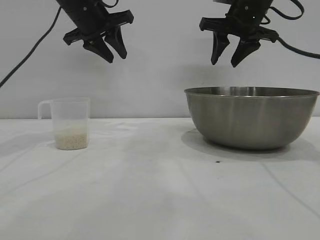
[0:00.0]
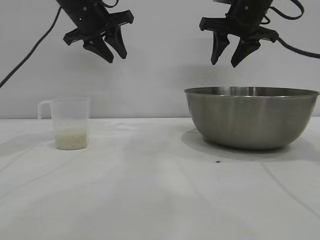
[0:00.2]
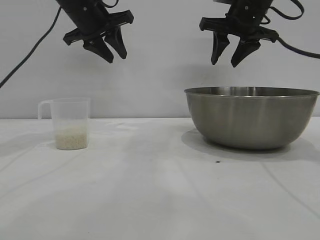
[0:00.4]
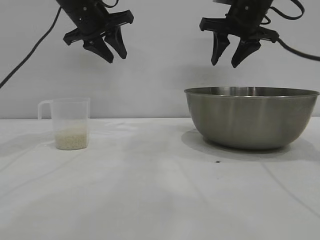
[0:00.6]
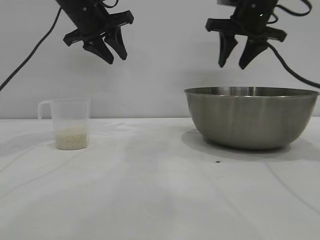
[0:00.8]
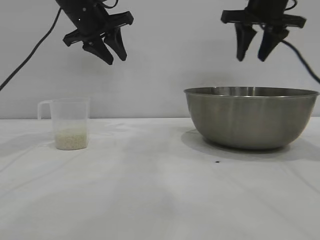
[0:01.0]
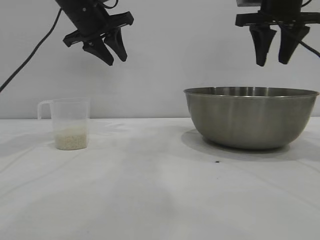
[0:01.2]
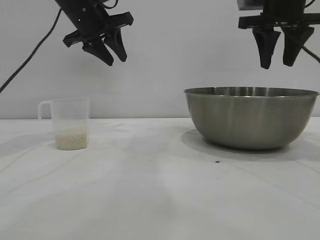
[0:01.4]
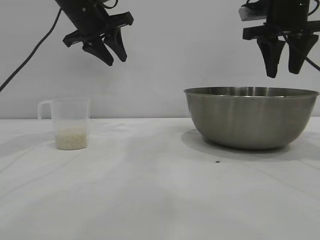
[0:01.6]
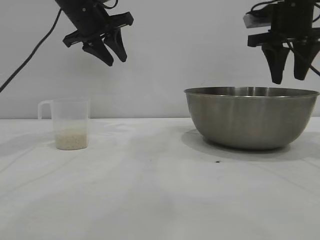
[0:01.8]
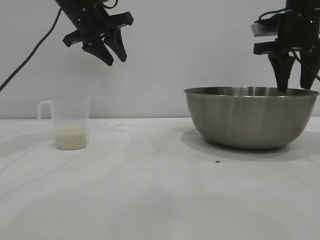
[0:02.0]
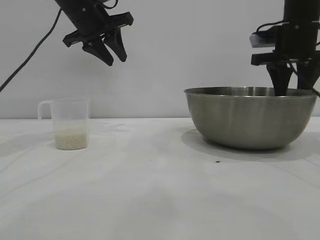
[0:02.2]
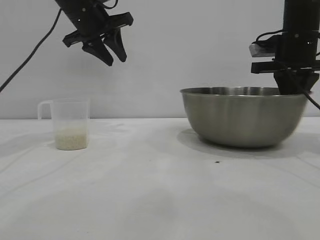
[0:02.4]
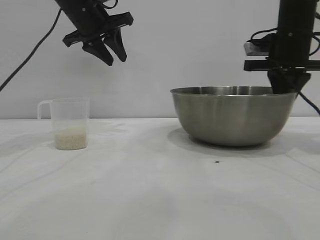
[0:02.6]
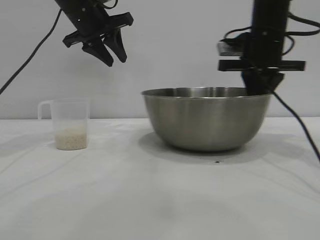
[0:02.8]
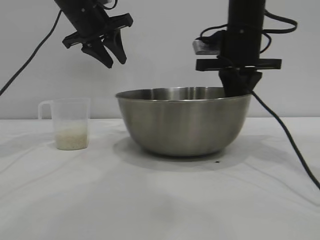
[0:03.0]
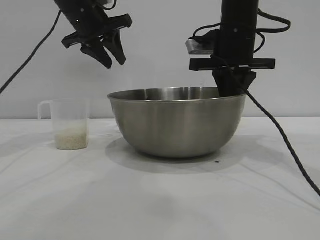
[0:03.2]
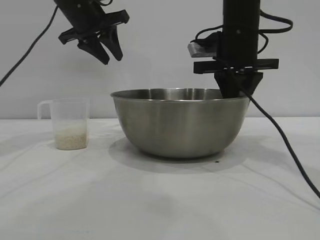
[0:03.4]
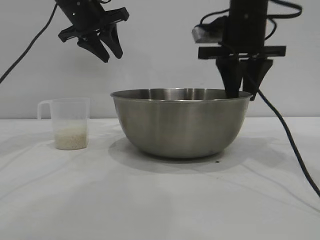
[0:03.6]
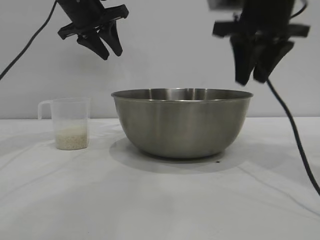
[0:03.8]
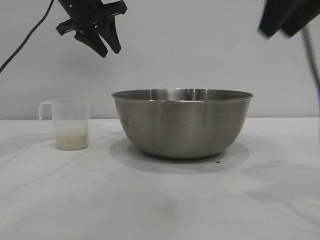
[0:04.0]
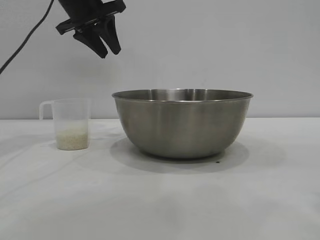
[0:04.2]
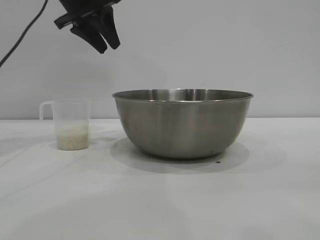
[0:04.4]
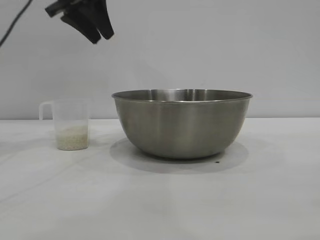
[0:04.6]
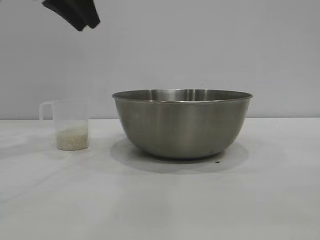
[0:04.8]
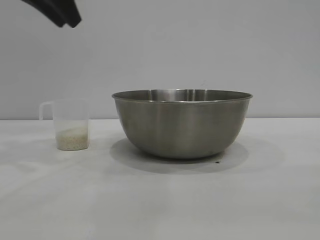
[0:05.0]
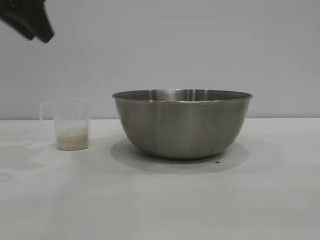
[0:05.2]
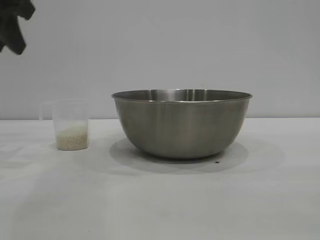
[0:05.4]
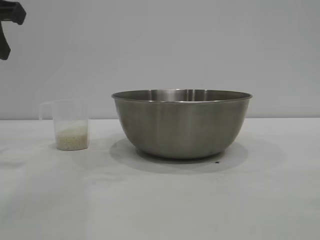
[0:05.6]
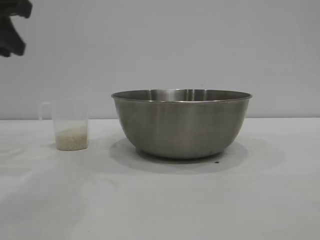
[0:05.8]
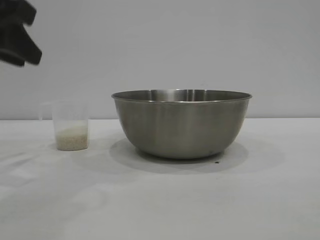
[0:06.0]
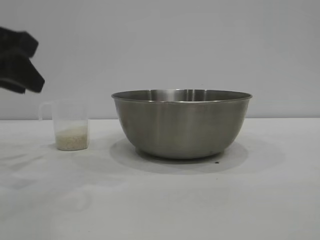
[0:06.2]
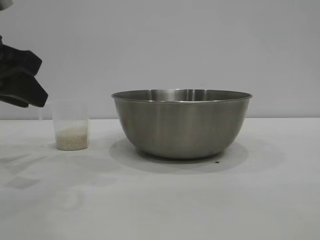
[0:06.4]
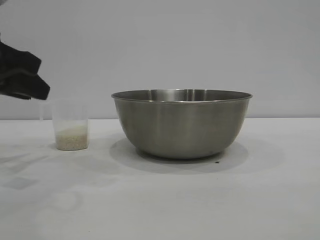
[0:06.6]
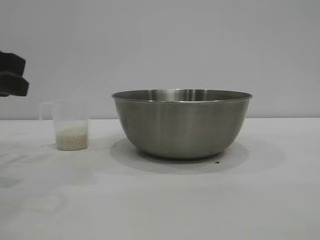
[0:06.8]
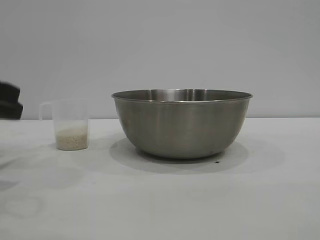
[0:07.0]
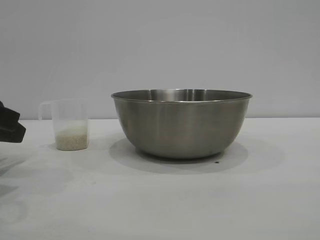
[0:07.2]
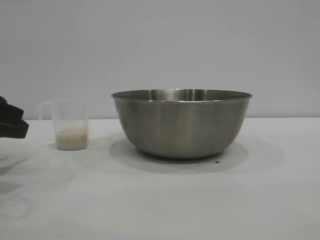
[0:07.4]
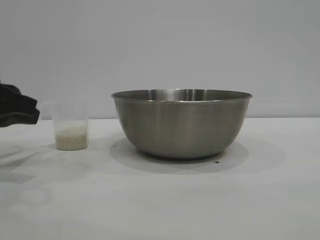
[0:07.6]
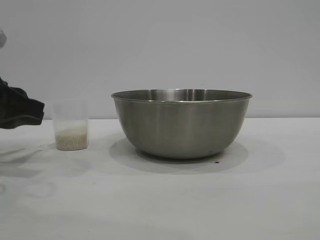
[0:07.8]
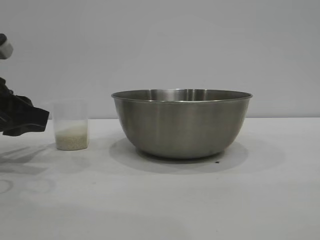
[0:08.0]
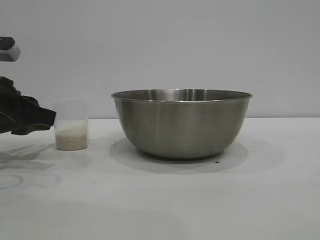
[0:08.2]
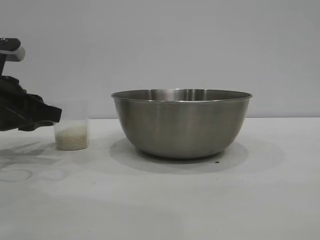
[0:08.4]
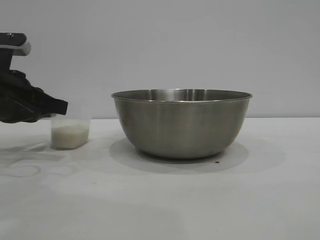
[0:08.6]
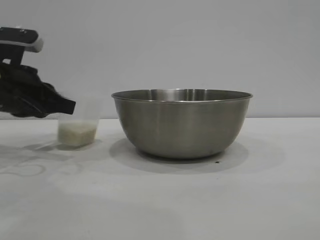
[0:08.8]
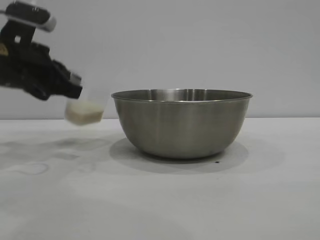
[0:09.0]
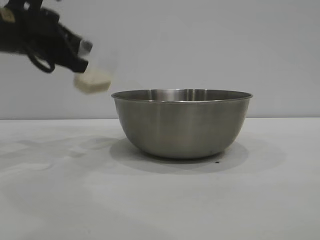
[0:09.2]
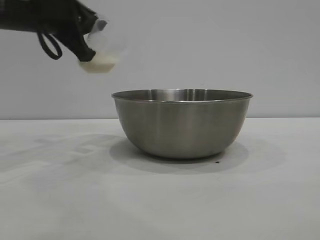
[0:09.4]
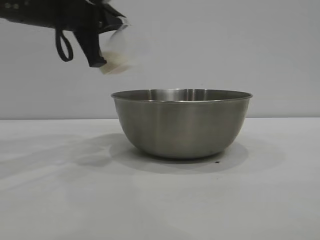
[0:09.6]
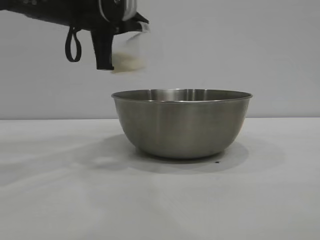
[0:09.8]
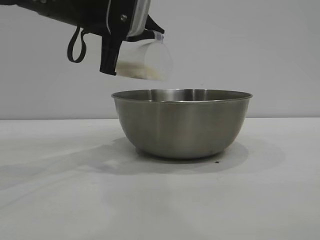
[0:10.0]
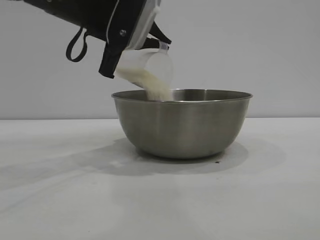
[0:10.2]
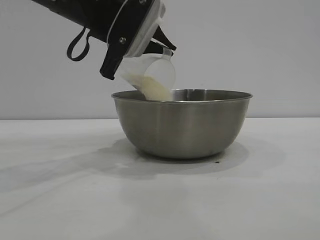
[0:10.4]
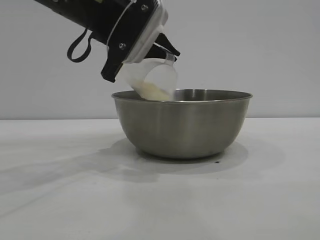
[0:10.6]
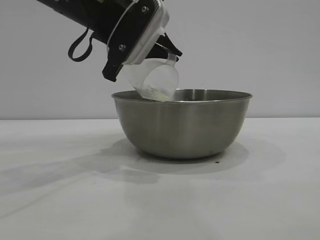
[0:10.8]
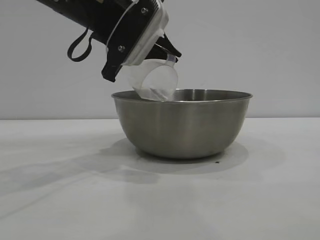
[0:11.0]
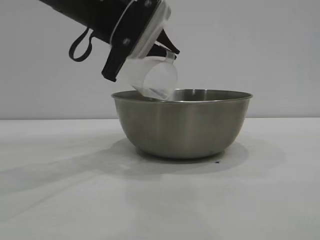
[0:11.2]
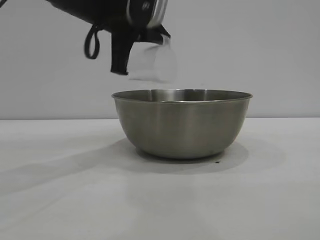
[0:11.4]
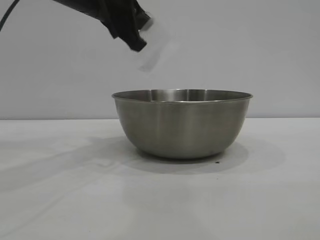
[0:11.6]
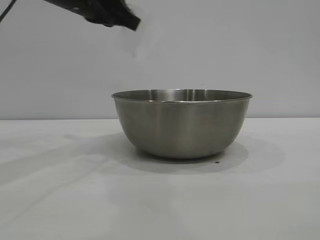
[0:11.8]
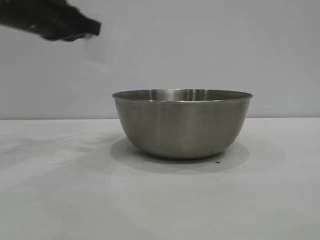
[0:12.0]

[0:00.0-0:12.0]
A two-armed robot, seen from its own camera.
Task of the whole recording: the right gripper grasp the rice container and place it in the center of the table, the left gripper grasp the rice scoop and pour the rice into the rice container.
Step, 0:00.0 to 0:03.8: Move the bowl to the center of view with the right gripper.
Step, 0:04.0 to 0:08.8: Pick up the cup with rice in it with the left gripper.
Step, 0:09.2 to 0:11.2: Pour the rice from the cup into the bowl with the left gripper.

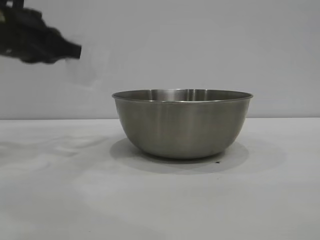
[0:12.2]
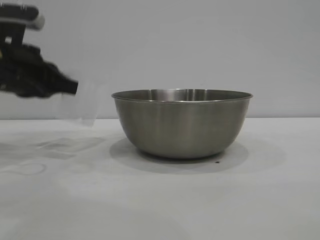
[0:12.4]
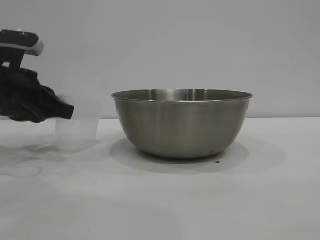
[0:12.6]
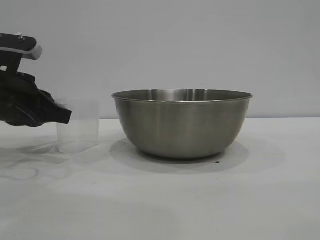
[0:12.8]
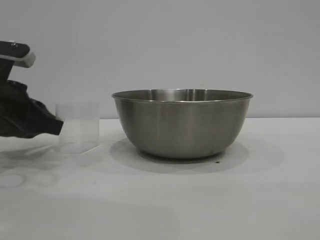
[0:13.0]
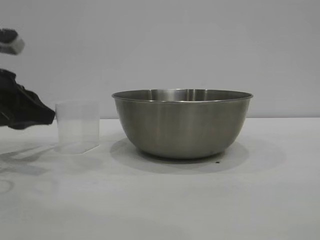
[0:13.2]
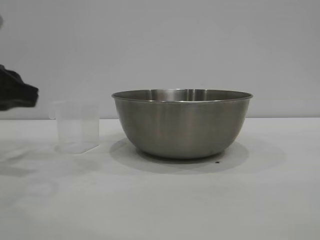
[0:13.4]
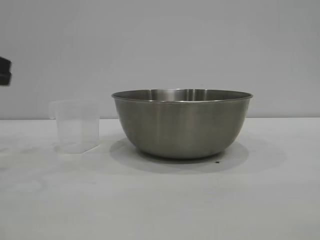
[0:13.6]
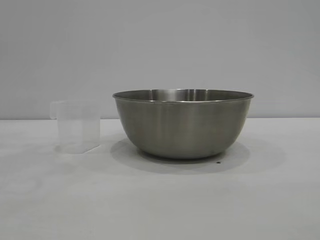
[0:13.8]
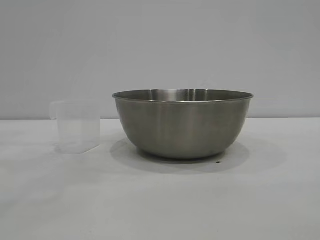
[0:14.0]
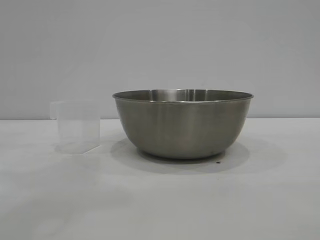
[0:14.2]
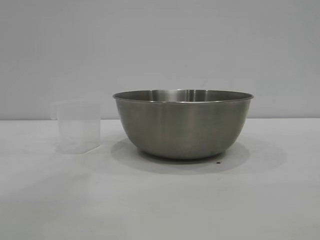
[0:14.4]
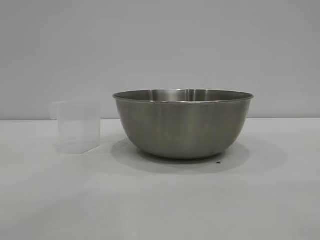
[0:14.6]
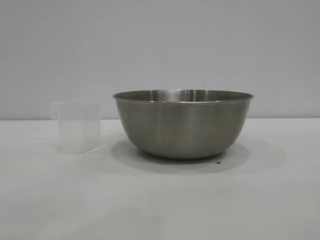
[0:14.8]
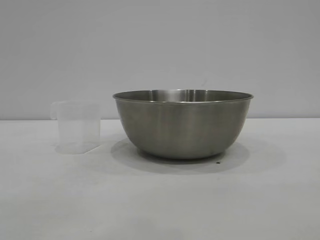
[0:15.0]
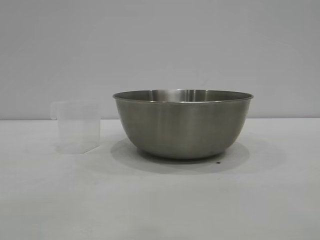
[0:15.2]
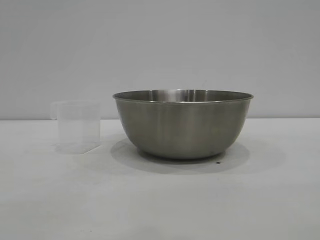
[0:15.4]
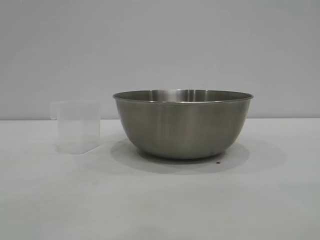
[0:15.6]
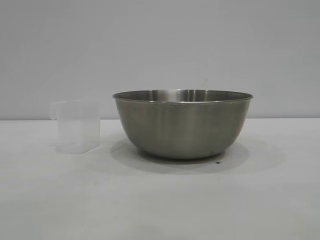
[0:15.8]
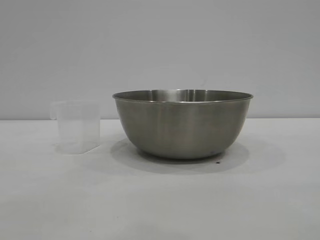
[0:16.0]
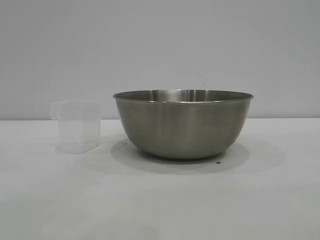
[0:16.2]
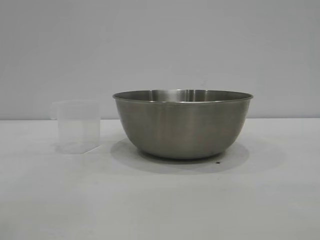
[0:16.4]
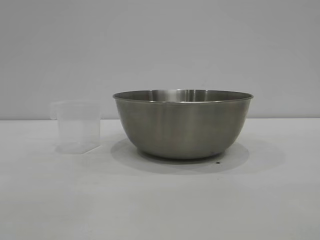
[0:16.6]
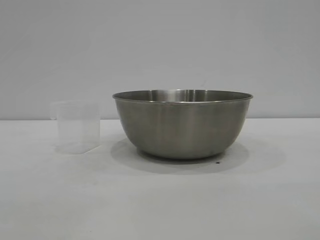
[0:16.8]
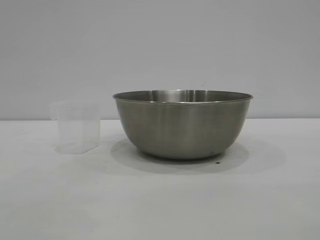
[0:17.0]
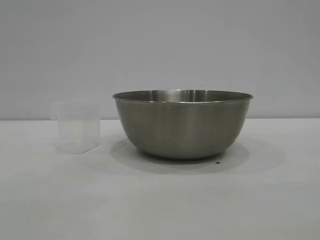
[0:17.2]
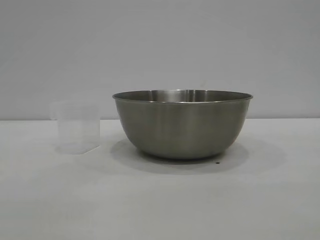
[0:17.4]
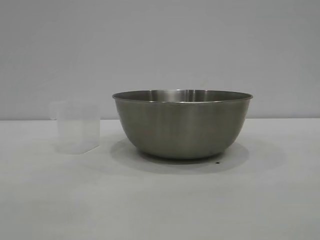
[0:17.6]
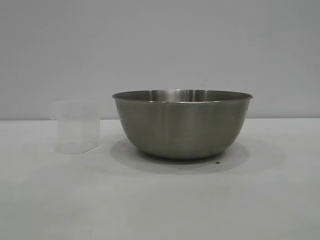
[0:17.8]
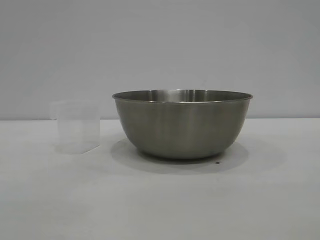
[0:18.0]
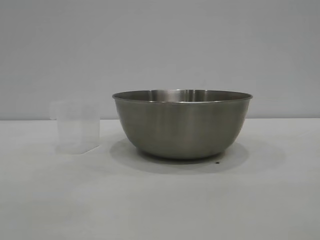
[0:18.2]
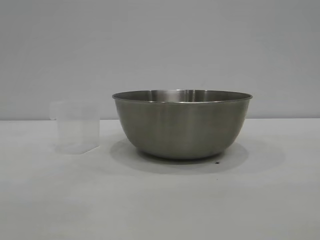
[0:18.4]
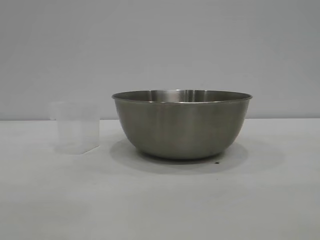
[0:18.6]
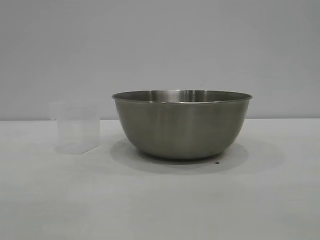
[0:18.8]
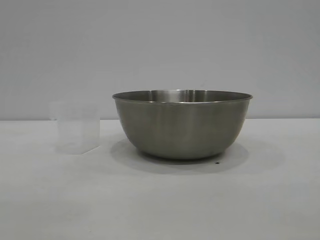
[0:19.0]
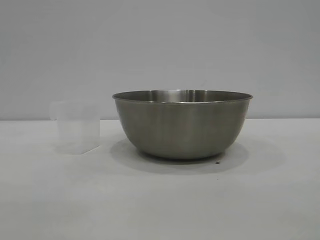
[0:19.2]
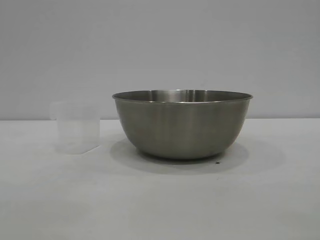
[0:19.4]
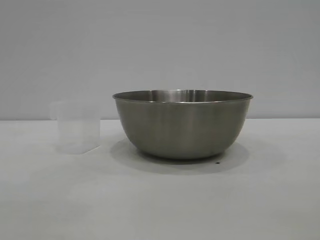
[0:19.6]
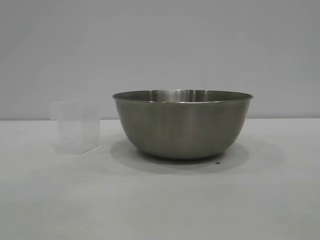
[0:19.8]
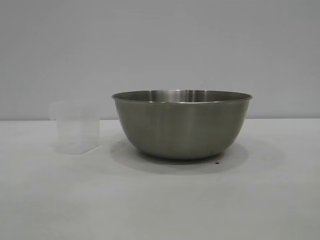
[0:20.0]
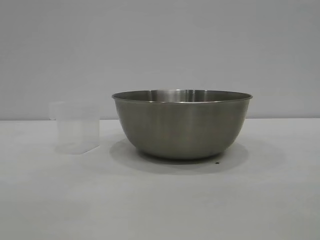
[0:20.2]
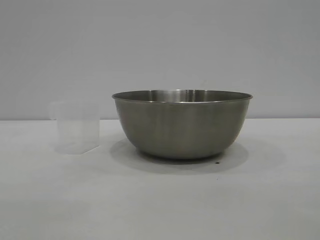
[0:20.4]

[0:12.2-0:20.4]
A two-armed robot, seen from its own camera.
Task of the whole recording: the right gripper grasp the rice container and place it in the center of the table, the left gripper grasp the rice scoop and pour the rice into the rice container.
Step, 0:12.2 to 0:13.2: Place the cup on the table with the left gripper.

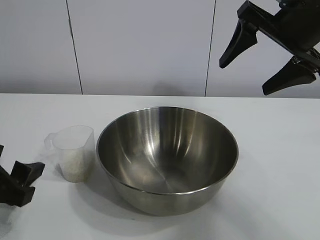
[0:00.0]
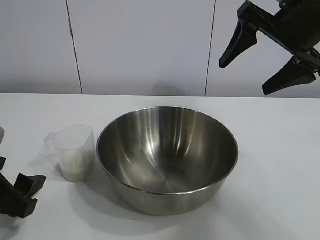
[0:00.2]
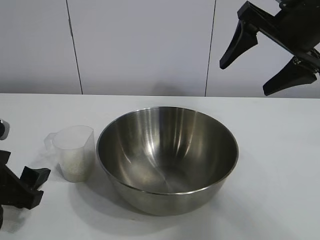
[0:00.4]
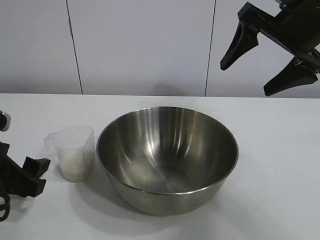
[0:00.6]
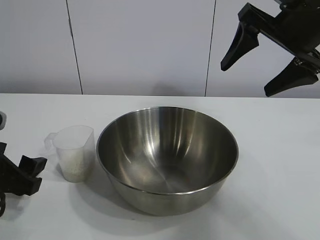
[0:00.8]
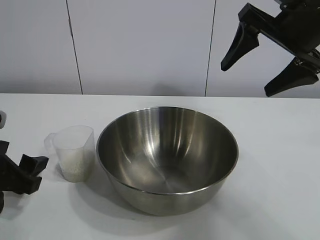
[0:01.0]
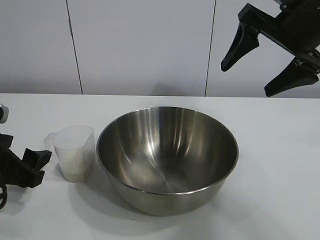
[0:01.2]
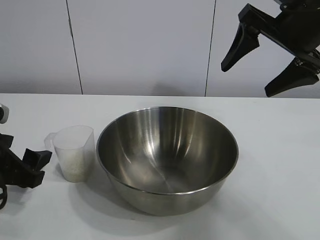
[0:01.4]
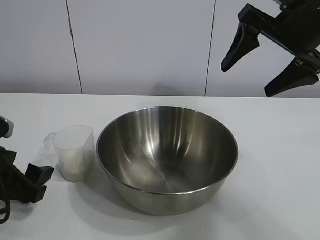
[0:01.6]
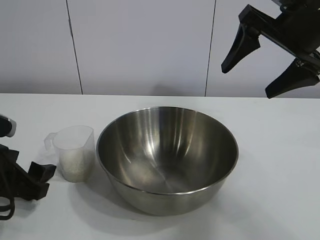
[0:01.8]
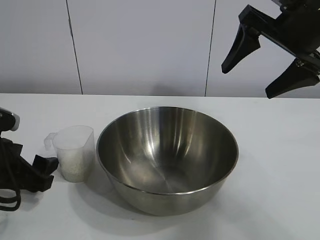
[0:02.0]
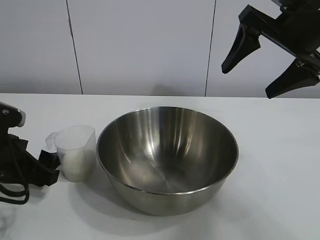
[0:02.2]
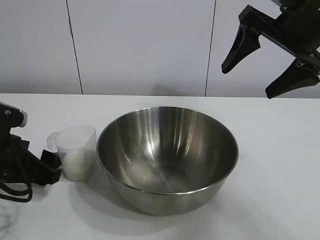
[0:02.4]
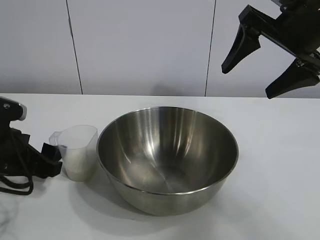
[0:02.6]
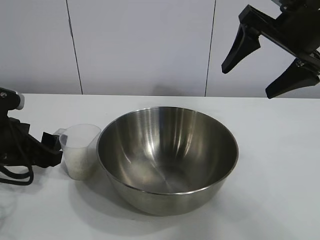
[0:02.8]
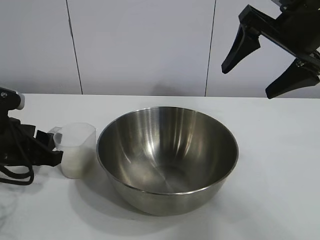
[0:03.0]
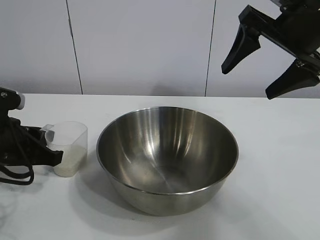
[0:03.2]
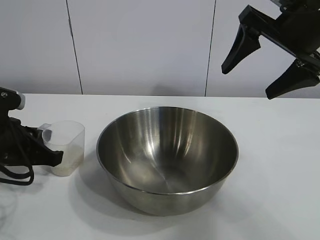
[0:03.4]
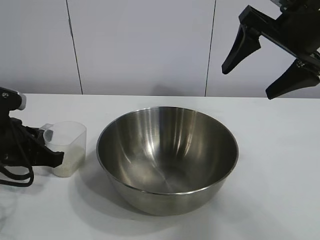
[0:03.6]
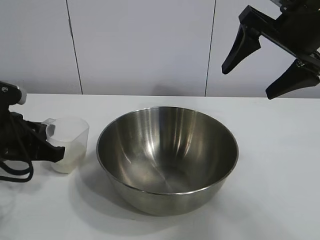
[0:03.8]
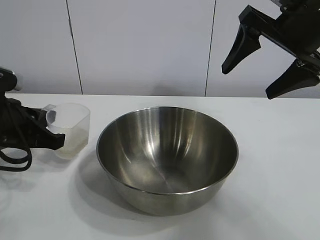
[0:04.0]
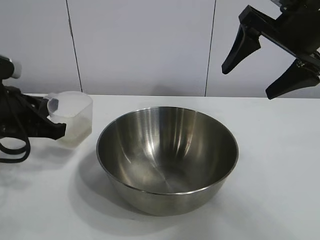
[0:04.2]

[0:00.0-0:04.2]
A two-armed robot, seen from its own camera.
Task of the whole recording: the right gripper grasp the rice container and place it in the center of the table, the left gripper grasp the rice scoop and pour the rice into the rice container.
Step, 0:00.0 to 0:03.2: Grasp the cup with rice in it with left gripper.
